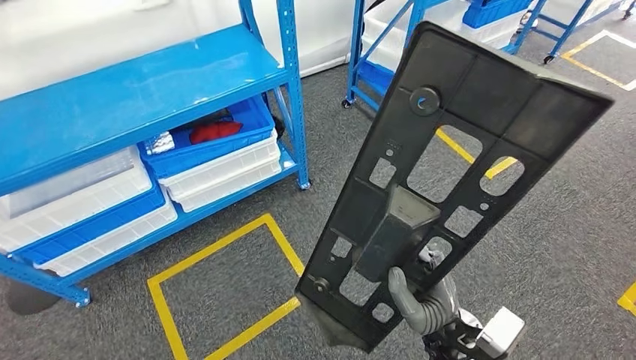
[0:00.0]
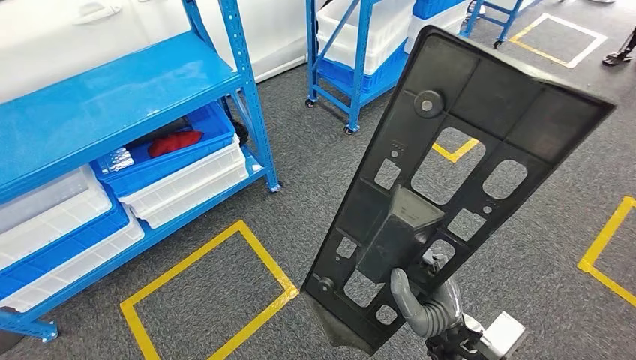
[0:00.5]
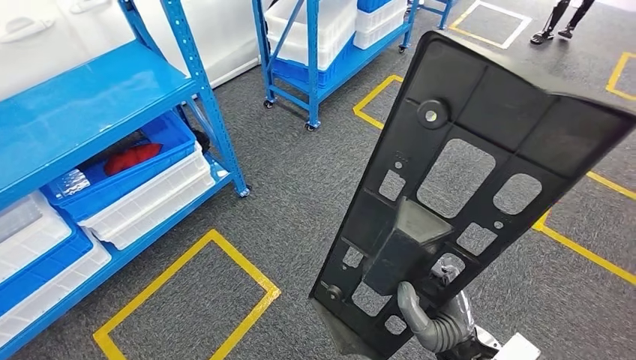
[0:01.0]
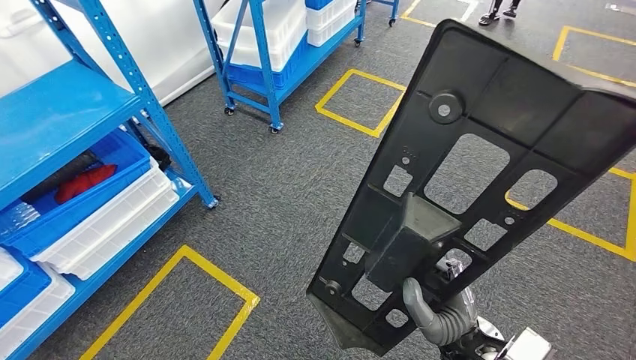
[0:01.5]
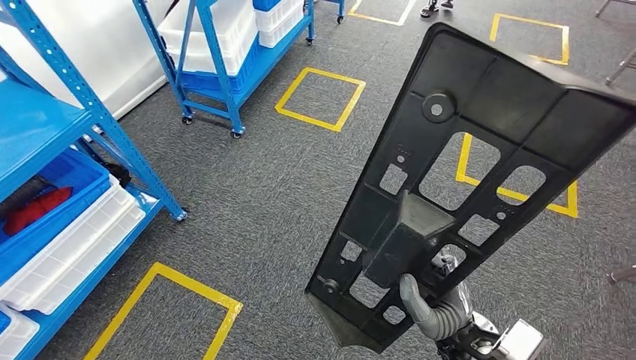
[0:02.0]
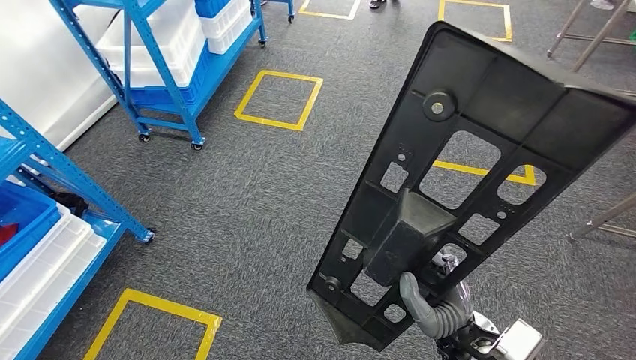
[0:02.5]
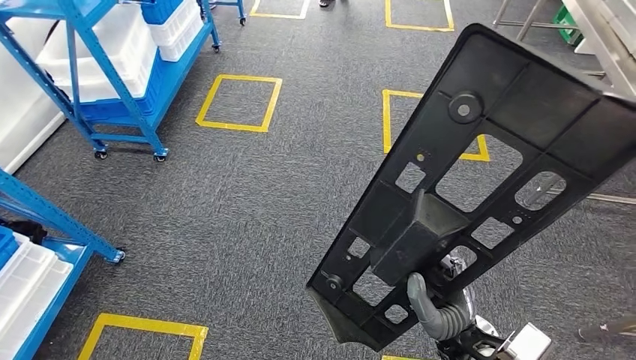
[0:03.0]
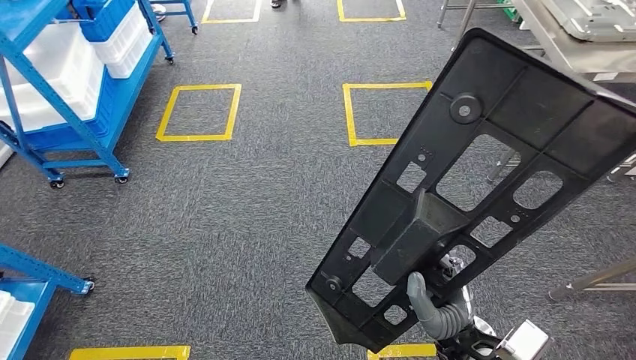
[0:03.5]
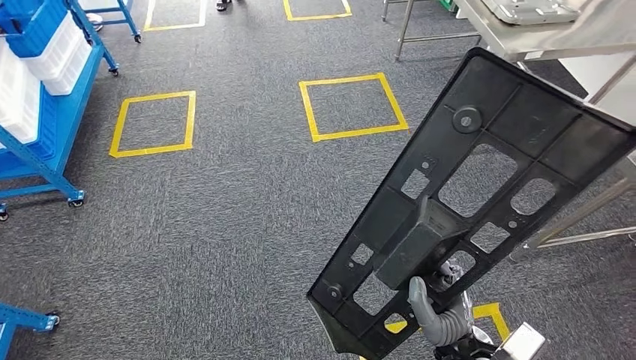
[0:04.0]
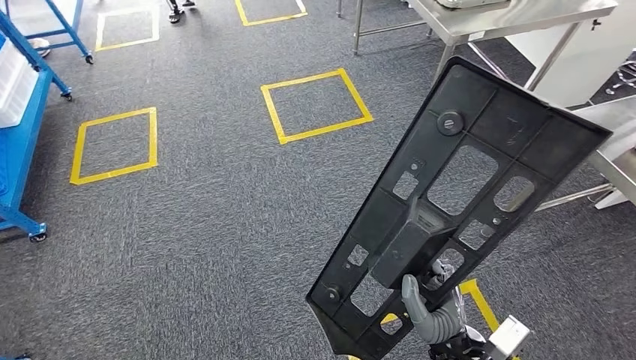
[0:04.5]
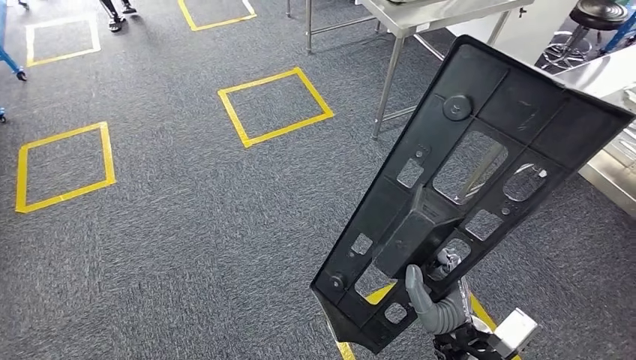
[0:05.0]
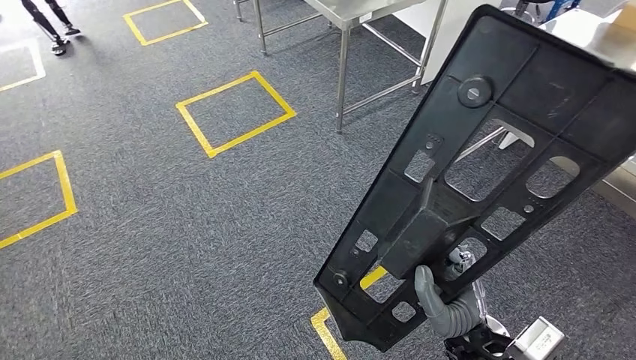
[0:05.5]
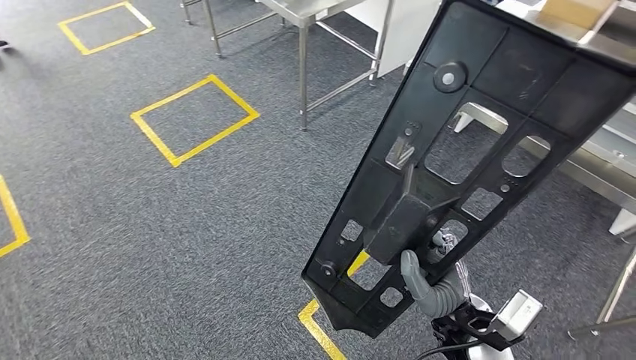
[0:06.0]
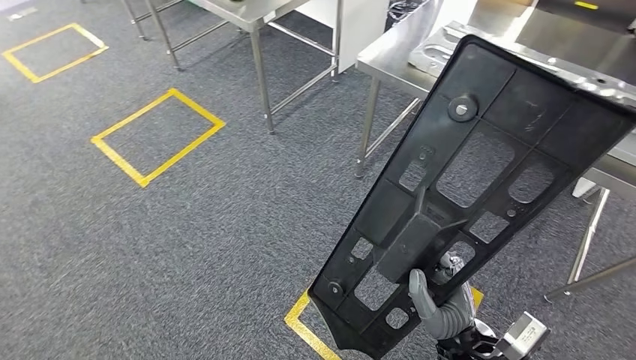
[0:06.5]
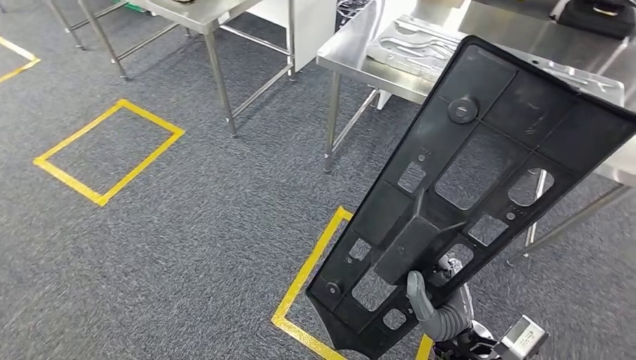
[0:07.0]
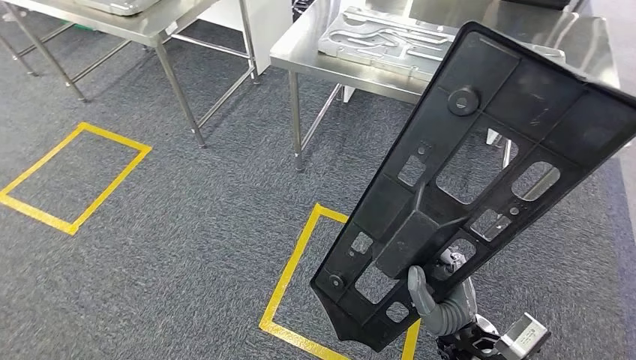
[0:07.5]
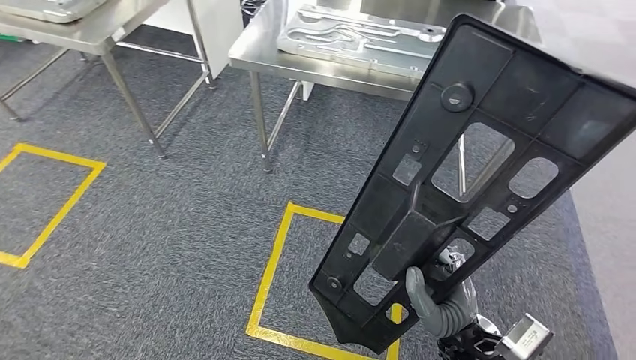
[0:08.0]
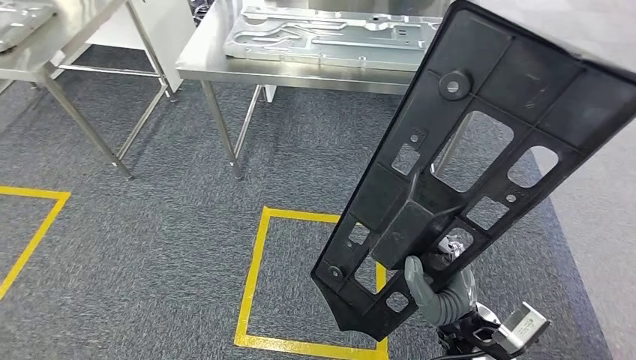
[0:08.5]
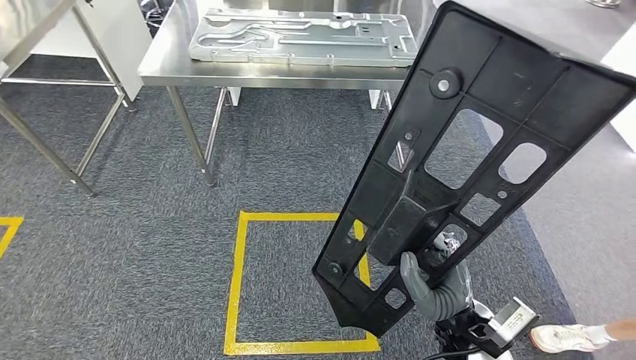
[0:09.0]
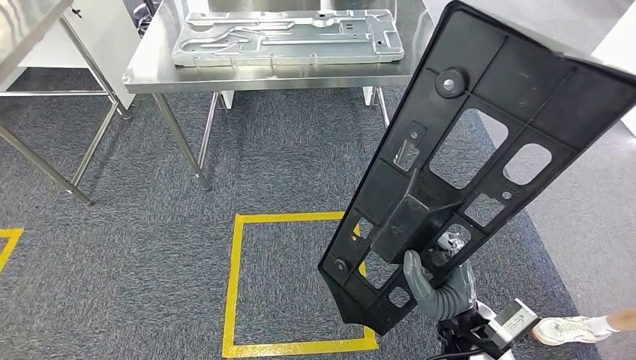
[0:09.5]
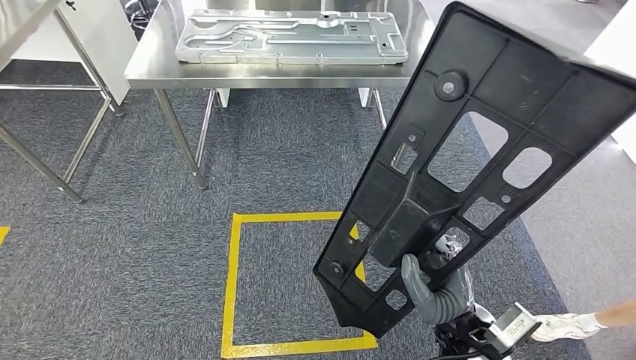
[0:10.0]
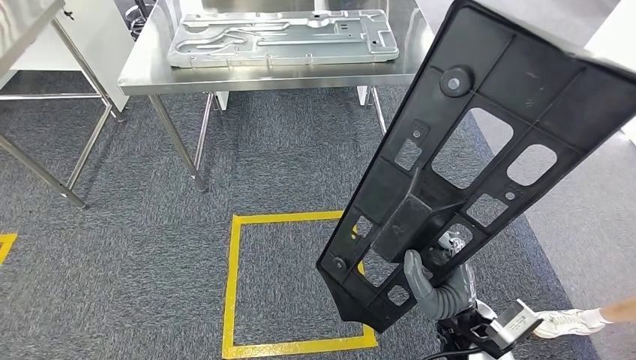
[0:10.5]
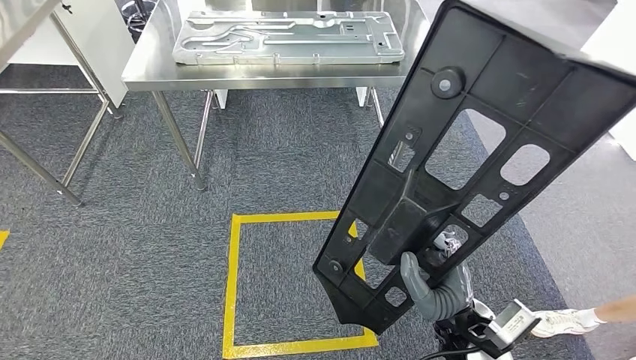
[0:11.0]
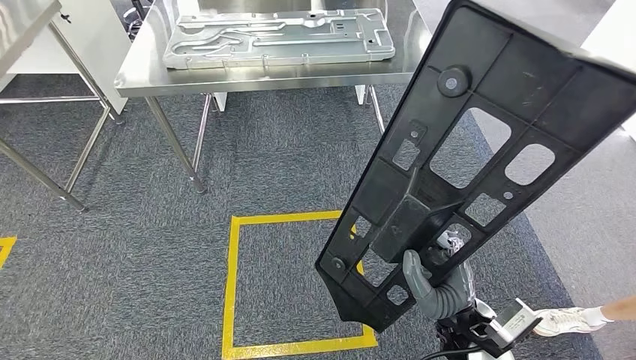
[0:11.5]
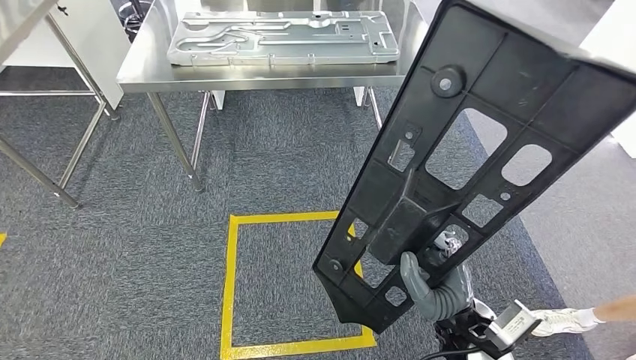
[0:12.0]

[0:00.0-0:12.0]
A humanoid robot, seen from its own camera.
0:10.0 to 0:12.0: Neither hand changes place.

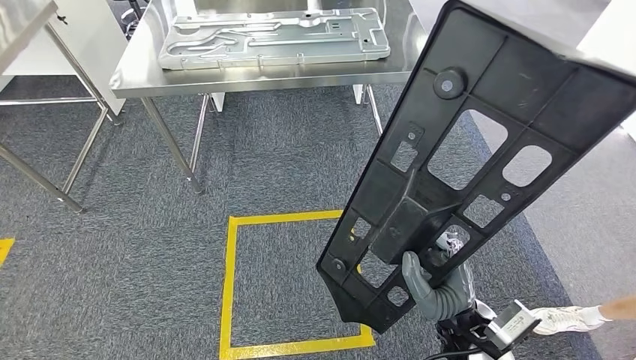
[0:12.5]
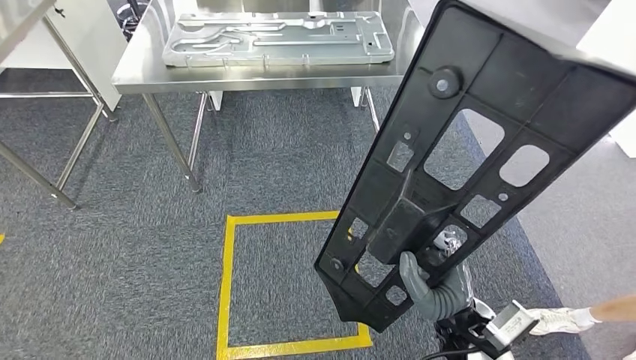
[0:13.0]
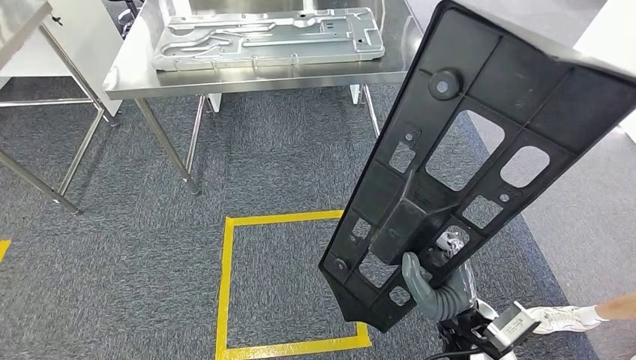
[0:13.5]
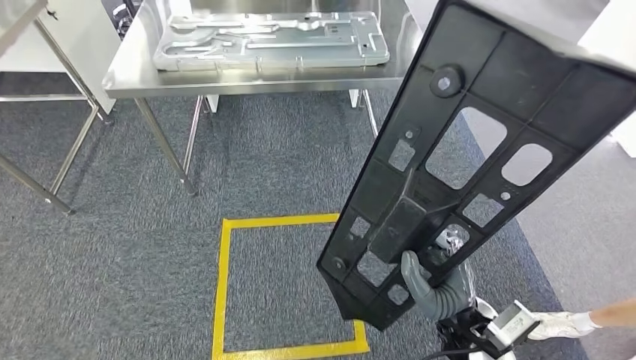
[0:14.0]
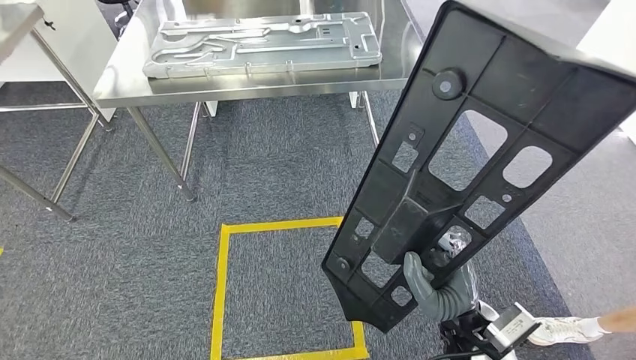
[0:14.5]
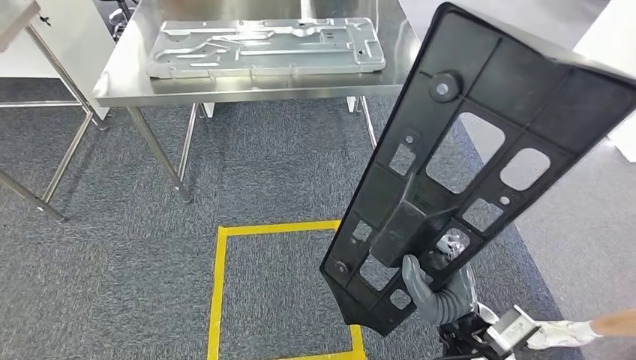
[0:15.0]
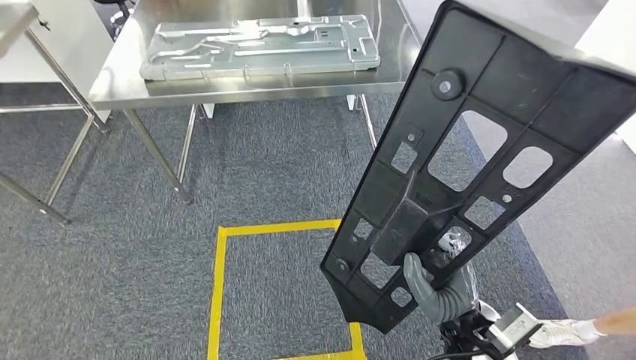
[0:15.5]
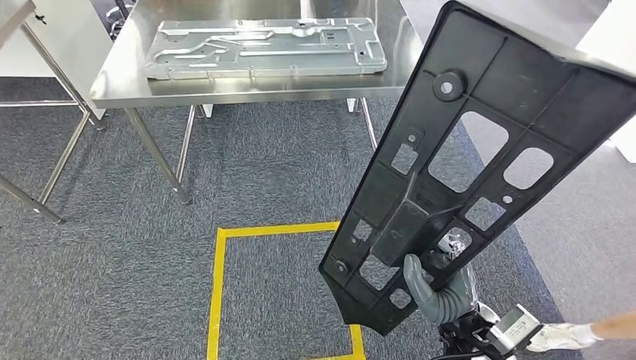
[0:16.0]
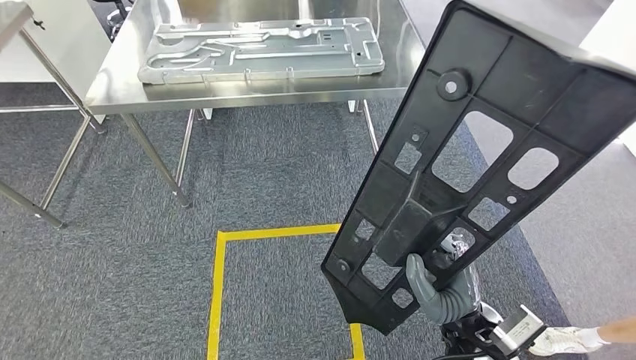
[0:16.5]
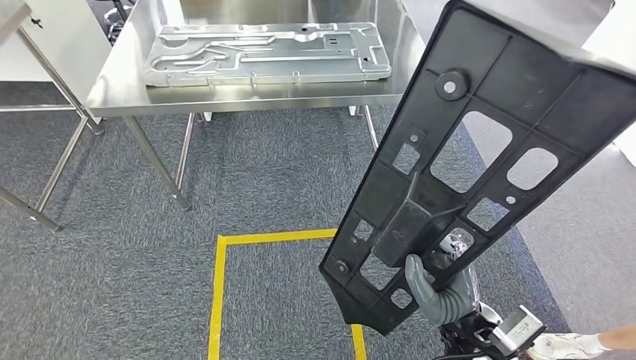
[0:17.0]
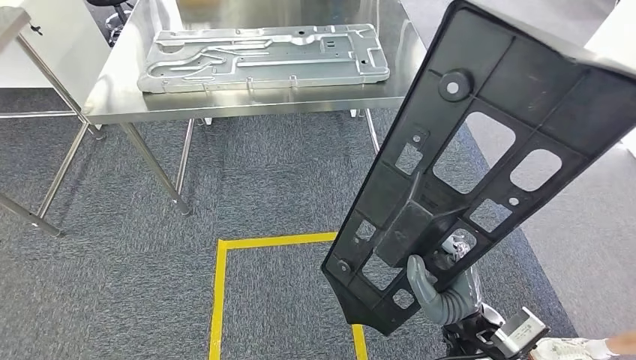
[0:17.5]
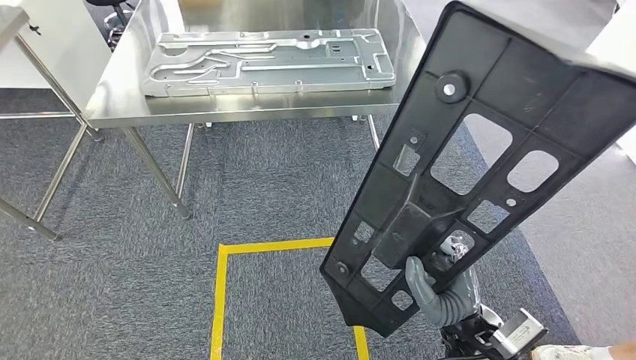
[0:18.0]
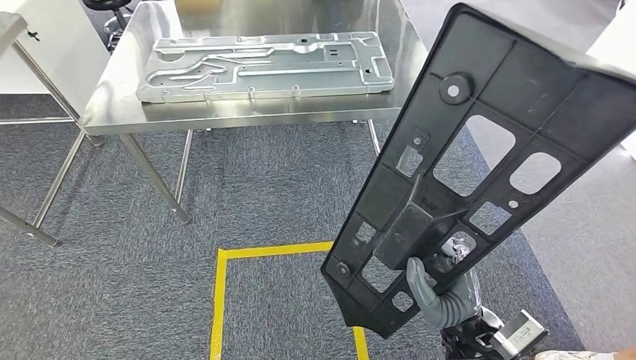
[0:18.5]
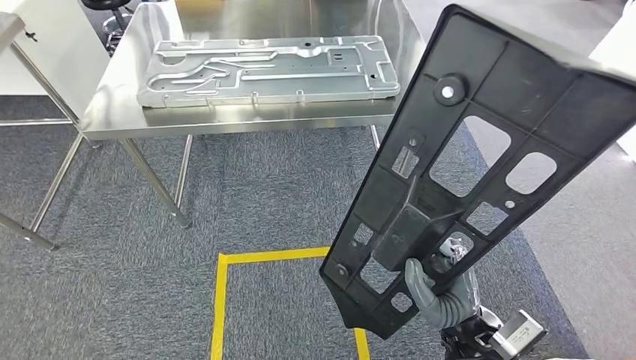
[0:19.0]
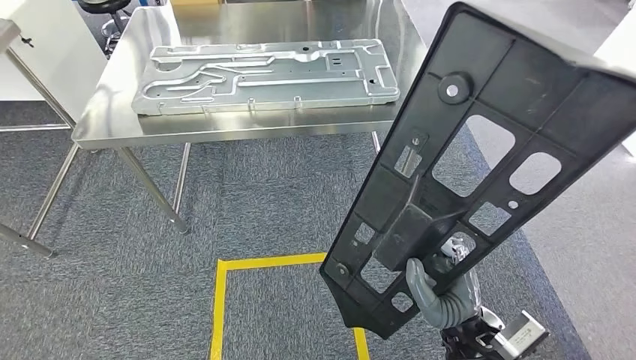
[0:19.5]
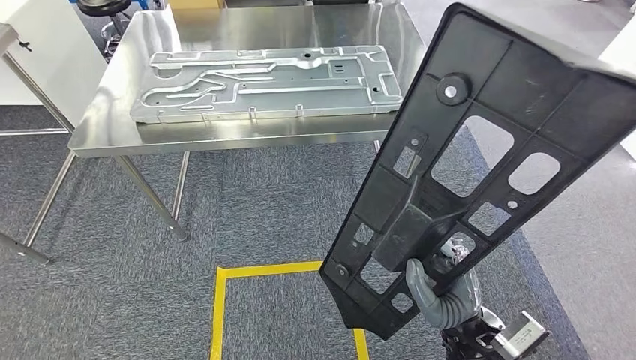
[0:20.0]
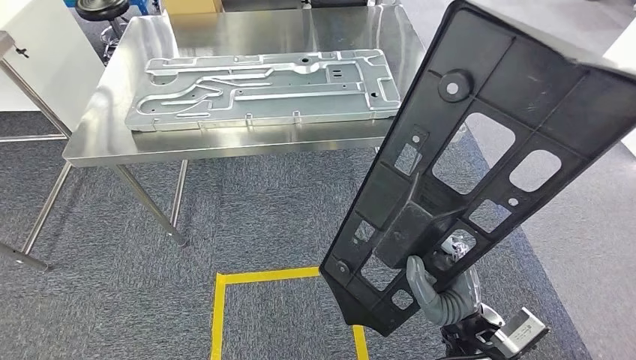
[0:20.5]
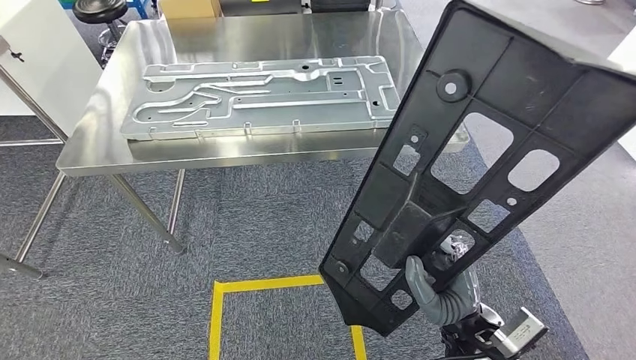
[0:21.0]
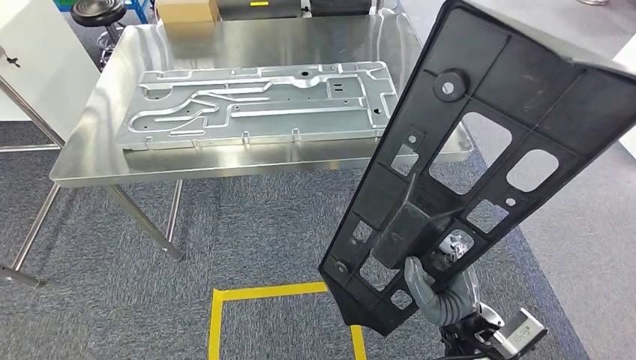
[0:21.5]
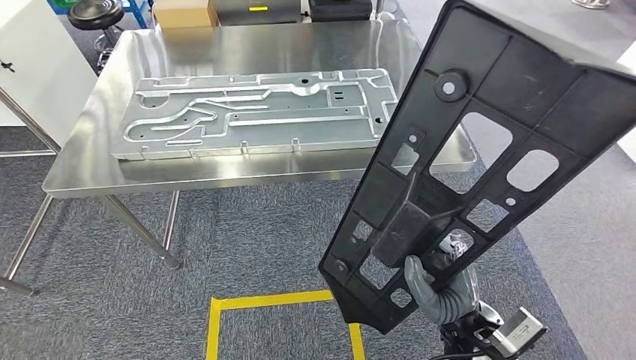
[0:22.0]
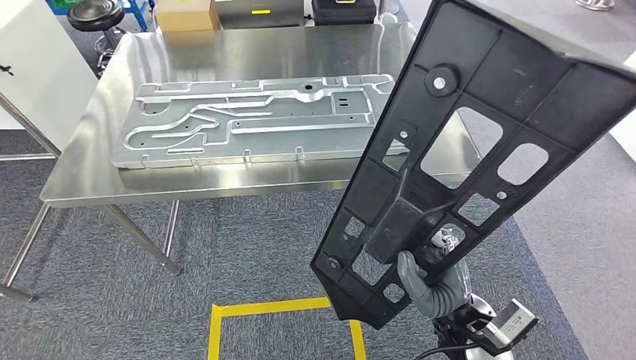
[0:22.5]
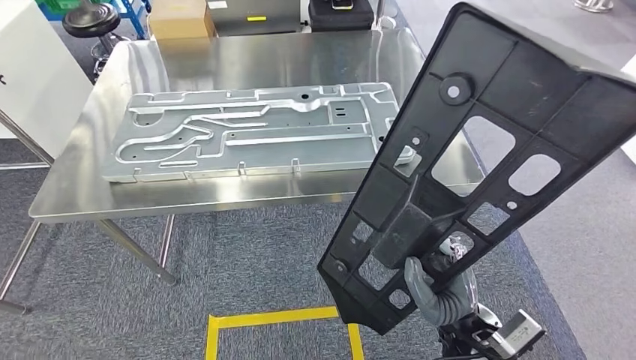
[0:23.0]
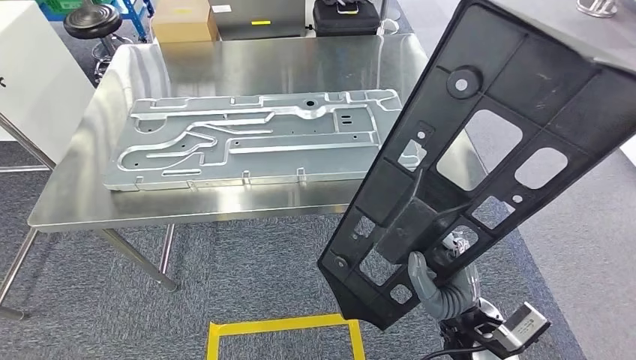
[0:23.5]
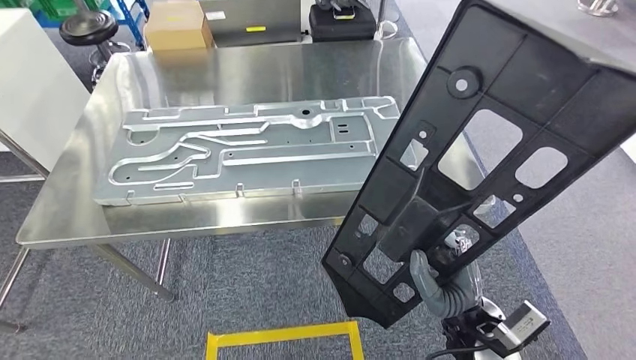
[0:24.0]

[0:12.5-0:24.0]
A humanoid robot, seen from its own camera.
Step, 0:12.5 to 0:23.0: Move the large material to the workbench.
0:12.5 to 0:16.5: Both hands stay put.
0:18.5 to 0:20.0: Neither hand changes place.
